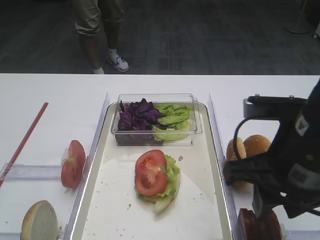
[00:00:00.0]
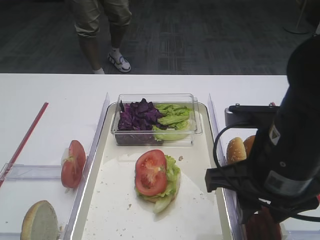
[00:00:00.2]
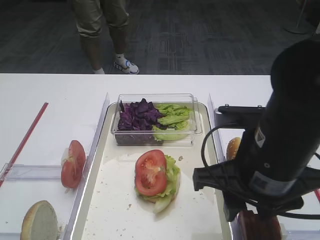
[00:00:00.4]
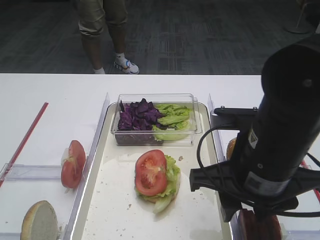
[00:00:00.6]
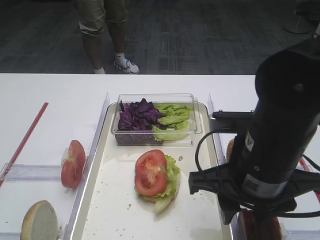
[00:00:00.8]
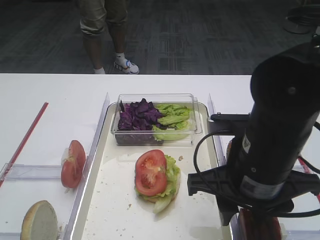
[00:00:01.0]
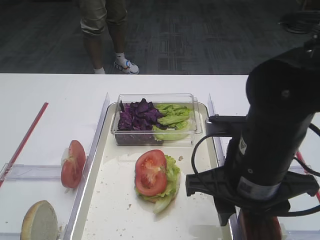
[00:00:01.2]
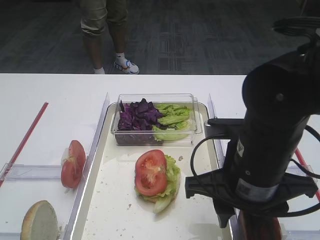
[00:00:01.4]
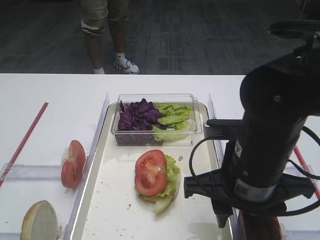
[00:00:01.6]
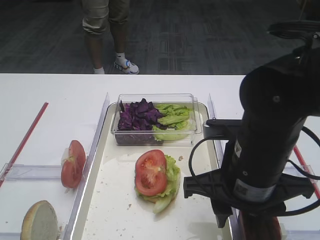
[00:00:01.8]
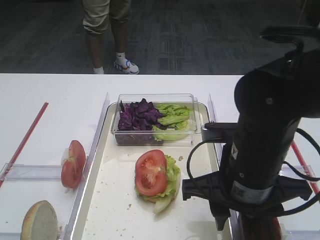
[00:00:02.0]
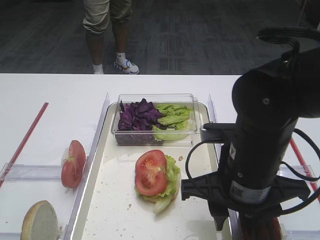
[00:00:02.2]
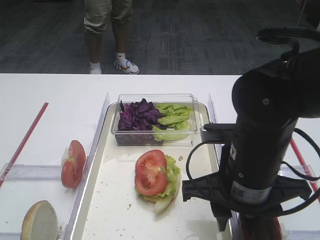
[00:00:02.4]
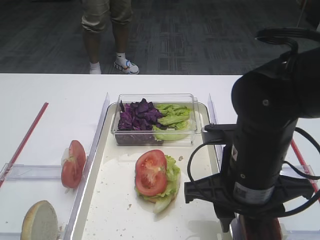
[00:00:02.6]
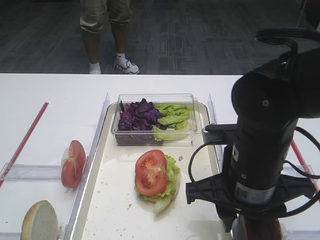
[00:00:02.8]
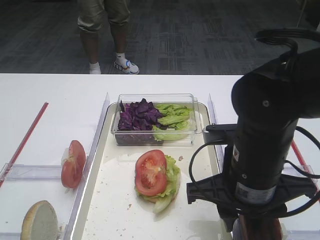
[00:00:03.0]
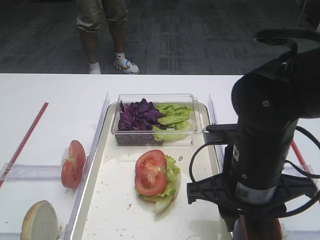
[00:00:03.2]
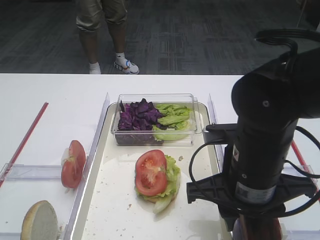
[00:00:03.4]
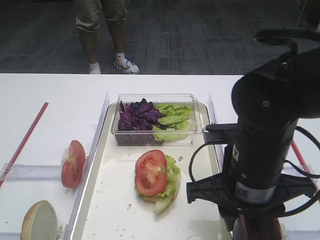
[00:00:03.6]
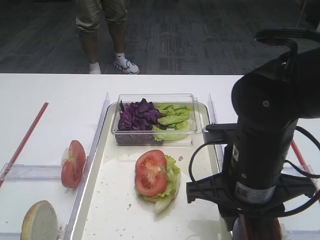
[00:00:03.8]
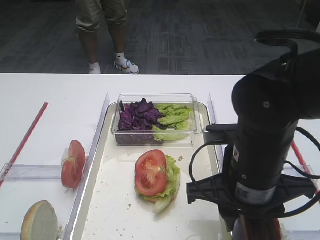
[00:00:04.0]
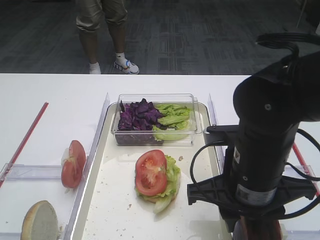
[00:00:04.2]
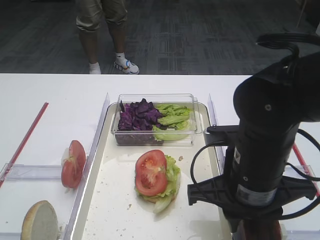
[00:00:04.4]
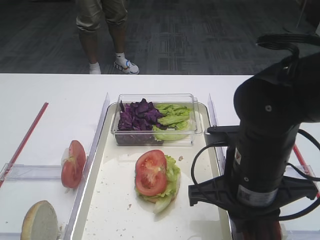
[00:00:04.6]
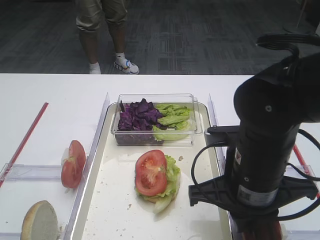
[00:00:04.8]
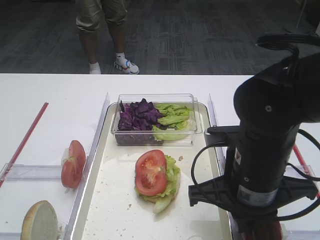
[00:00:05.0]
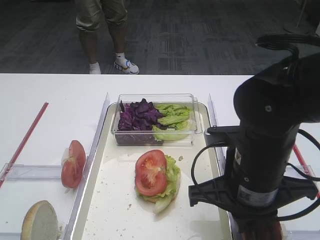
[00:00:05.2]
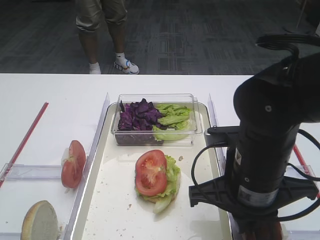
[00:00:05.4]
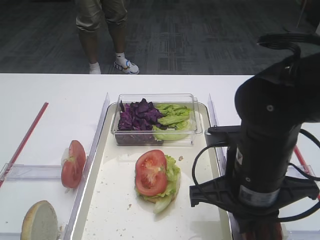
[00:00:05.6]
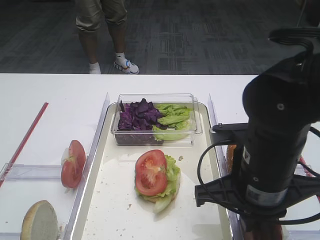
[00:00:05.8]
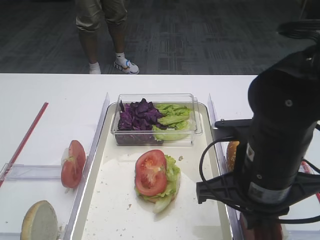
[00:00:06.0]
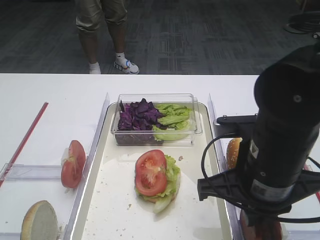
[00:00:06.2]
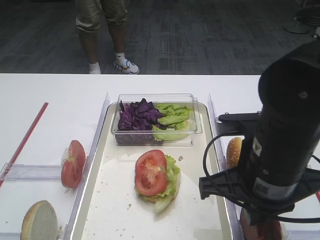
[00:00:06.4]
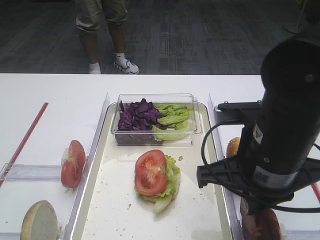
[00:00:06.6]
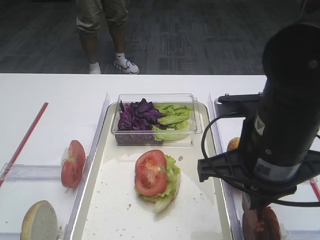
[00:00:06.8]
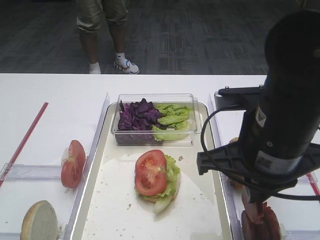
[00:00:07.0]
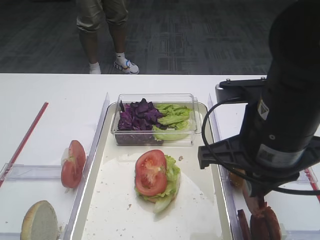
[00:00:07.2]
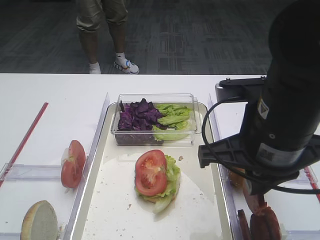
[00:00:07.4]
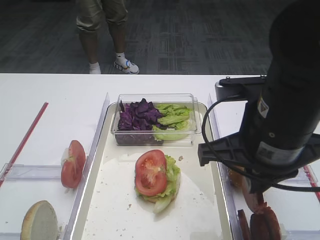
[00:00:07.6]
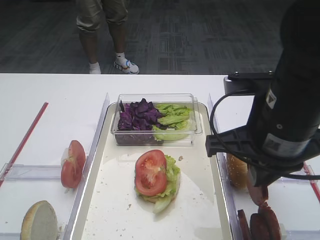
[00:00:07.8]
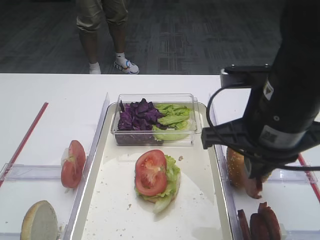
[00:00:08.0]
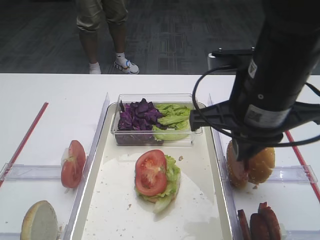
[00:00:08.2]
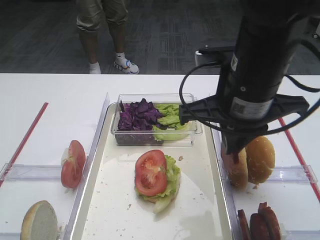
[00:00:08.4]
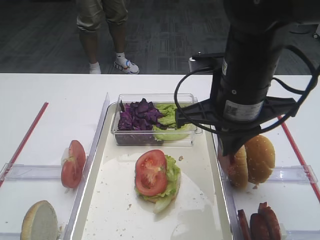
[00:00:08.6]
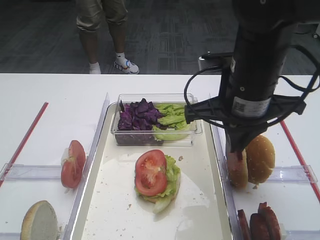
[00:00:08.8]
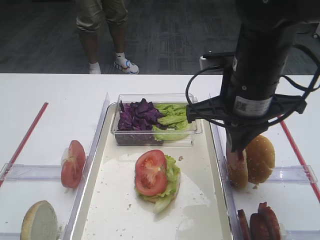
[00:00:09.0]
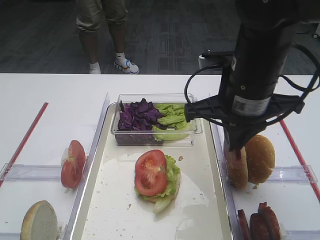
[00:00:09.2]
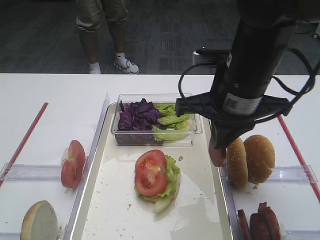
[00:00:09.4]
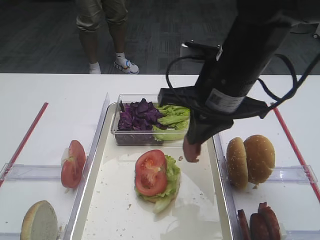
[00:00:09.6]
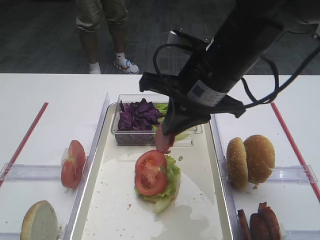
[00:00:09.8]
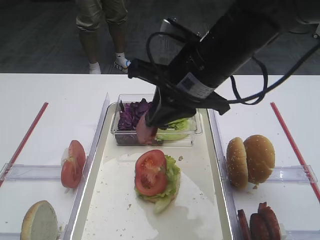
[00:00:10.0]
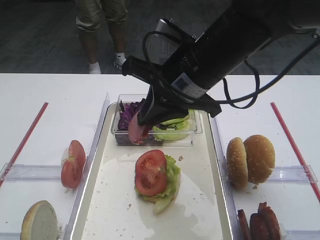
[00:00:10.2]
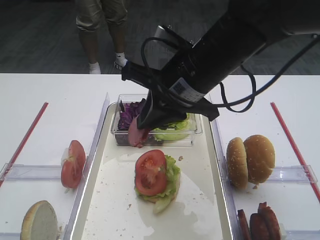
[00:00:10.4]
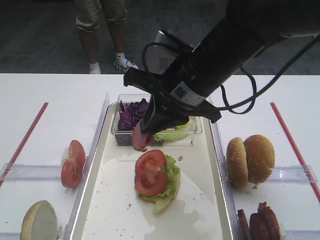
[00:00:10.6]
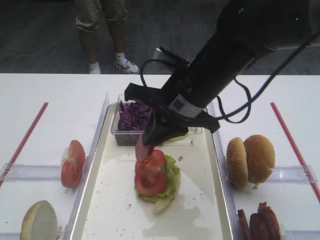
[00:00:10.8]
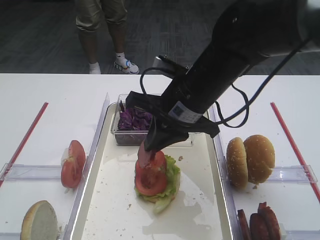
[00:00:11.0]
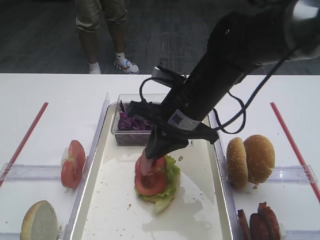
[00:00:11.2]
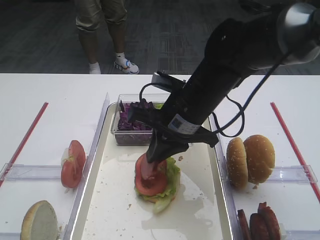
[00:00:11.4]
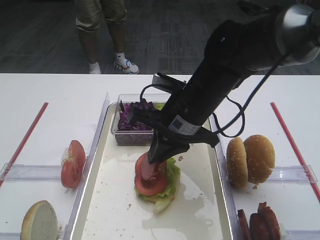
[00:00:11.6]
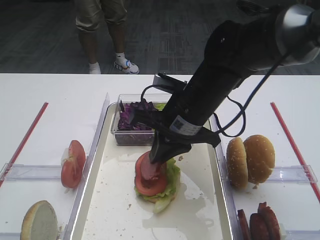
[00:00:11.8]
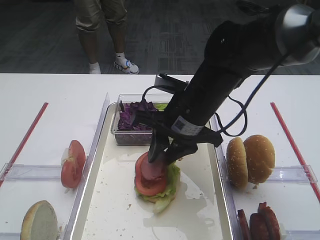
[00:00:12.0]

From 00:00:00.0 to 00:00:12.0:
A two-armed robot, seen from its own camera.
Step, from 00:00:00.0 to 00:00:07.6: Pick up the cutlet with the right gripper.
From 00:00:00.0 to 00:00:01.6: The right gripper moves about 5 cm.
From 00:00:01.6 to 00:00:04.4: The two grippers keep their place.
From 00:00:04.4 to 00:00:06.0: The right gripper closes.
From 00:00:06.0 to 00:00:07.6: The right gripper shifts some 5 cm upward.
From 00:00:07.6 to 00:00:09.0: The right gripper travels forward by about 10 cm.
From 00:00:09.0 to 00:00:10.4: The right gripper is displaced to the left by approximately 5 cm.
From 00:00:10.4 to 00:00:12.0: The right gripper is displaced downward by some 5 cm.

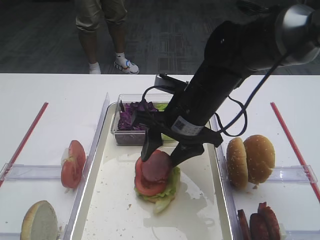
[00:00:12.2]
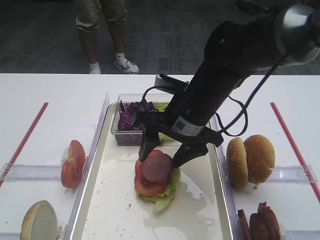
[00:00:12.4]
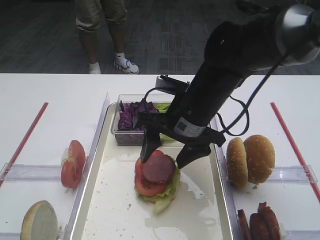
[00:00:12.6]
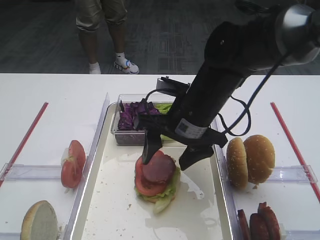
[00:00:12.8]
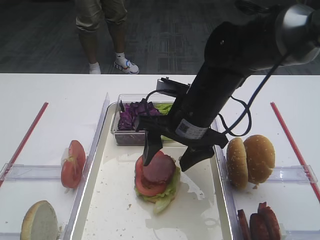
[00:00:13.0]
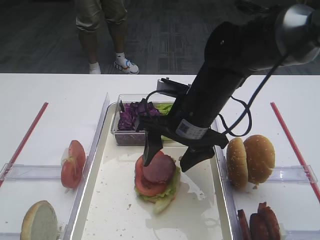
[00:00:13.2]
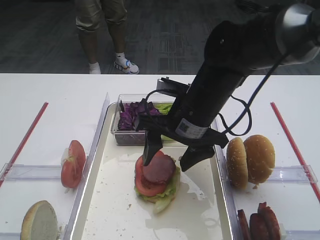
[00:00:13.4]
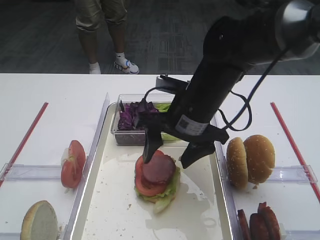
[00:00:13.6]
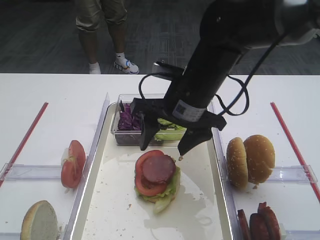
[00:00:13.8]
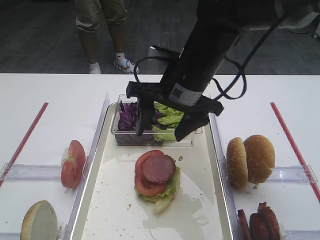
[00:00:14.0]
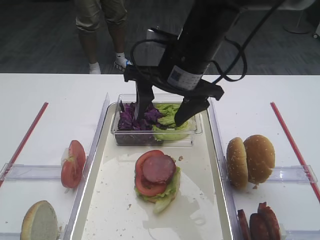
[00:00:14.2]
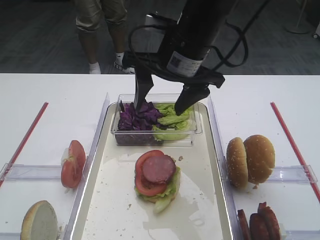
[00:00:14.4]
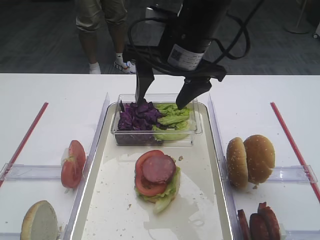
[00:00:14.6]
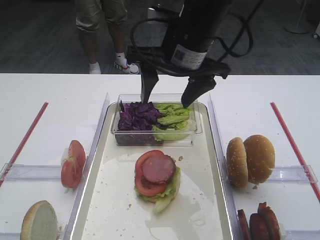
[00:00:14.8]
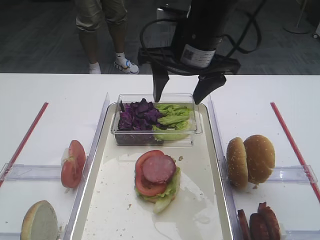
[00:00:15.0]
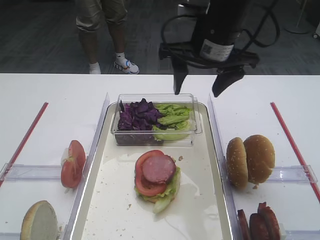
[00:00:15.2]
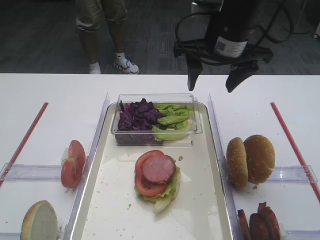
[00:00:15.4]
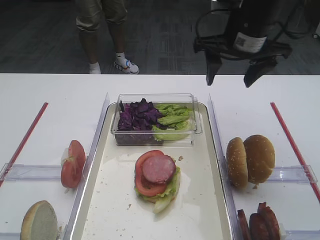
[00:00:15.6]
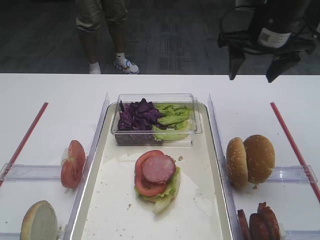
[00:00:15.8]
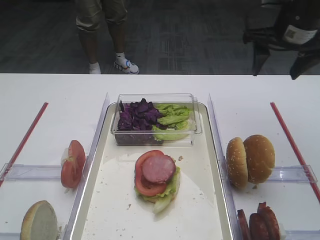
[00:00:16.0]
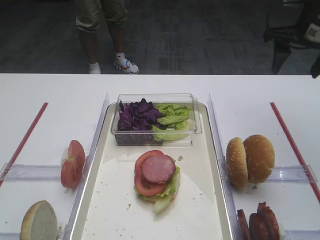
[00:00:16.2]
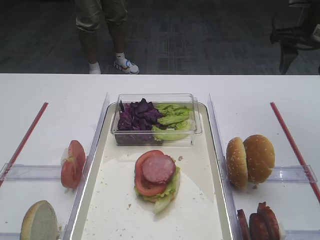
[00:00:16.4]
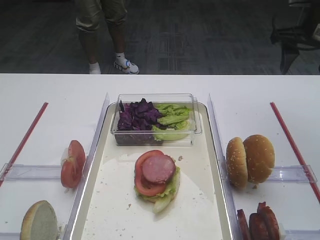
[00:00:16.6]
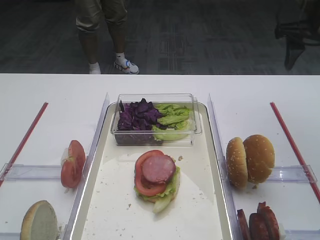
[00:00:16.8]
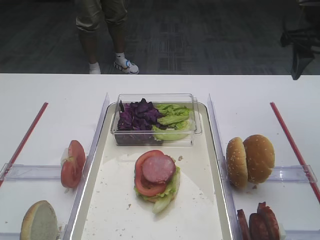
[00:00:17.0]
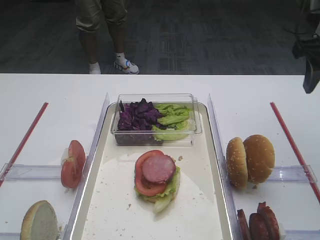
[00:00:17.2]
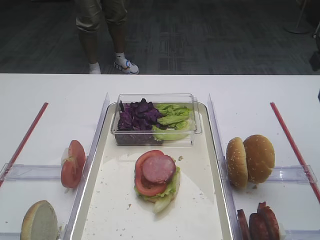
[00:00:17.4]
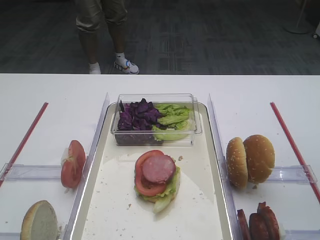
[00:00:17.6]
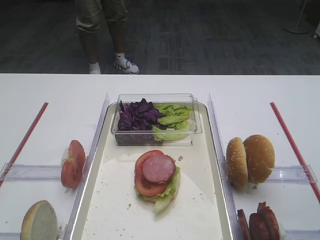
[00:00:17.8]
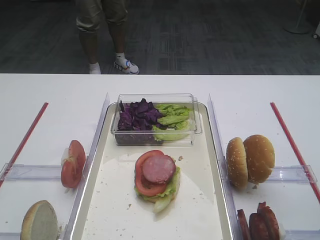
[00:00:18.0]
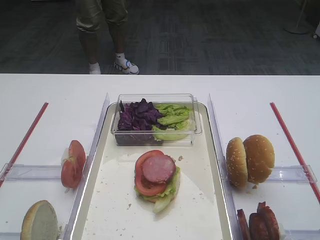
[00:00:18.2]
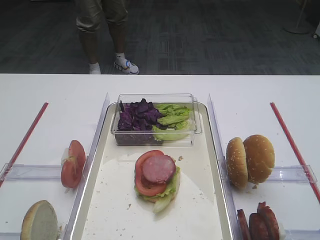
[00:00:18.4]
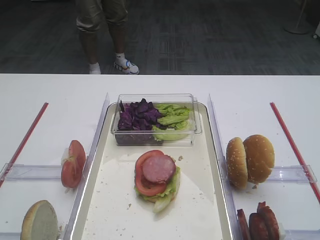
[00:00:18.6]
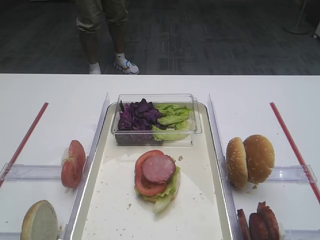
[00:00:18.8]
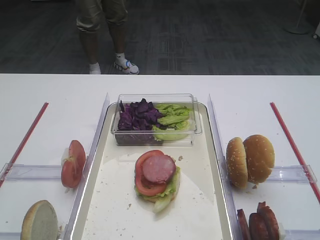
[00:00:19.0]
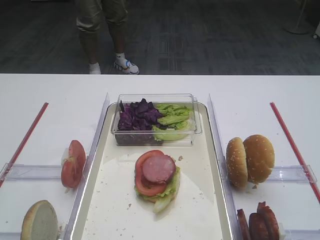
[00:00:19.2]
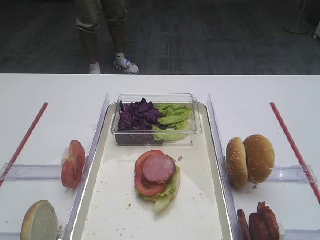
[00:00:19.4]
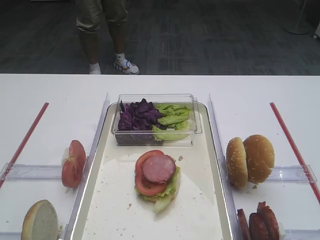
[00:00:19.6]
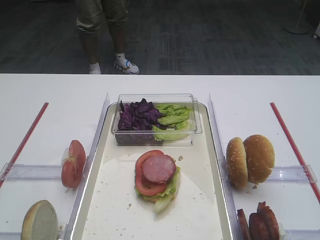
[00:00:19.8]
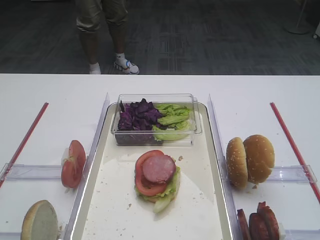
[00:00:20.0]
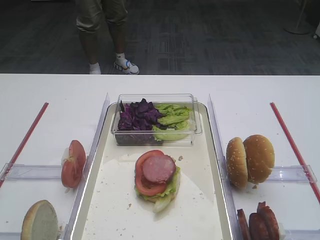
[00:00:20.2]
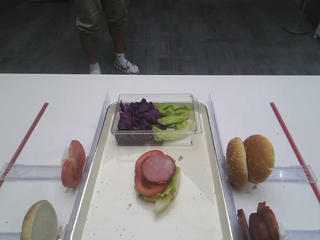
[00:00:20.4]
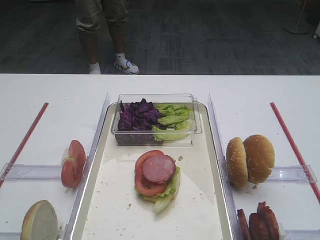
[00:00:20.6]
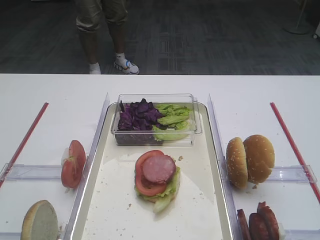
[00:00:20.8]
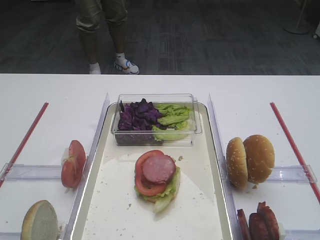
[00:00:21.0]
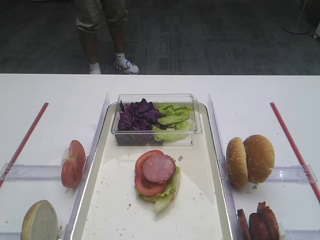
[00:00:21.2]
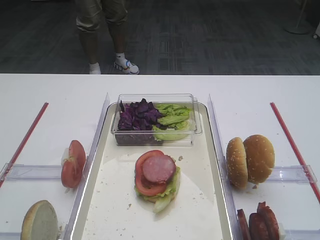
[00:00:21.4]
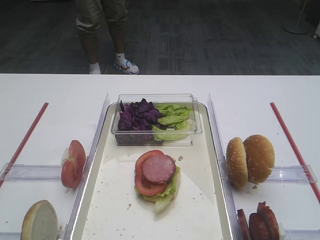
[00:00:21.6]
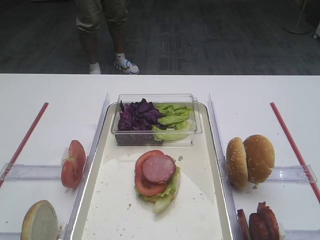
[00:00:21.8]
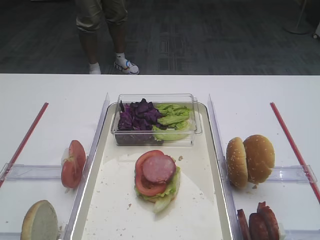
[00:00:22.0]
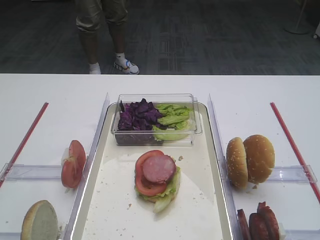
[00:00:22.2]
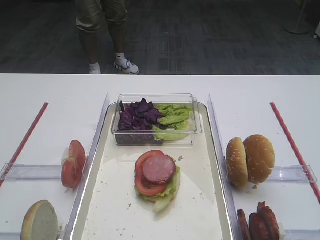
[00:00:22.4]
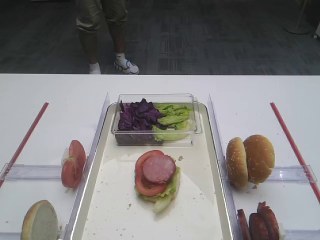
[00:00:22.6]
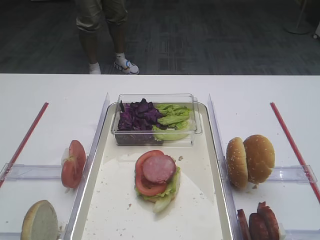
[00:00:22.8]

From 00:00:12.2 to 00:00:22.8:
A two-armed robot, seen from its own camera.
Step, from 00:00:12.2 to 00:00:14.8: Place the cutlet on the tomato slice with the right gripper.
From 00:00:12.2 to 00:00:13.8: The grippers move only a little.
From 00:00:13.8 to 00:00:15.2: The right gripper goes roughly 10 cm upward.
From 00:00:15.2 to 00:00:16.8: The right gripper goes about 20 cm to the right.
From 00:00:16.8 to 00:00:18.2: The right gripper shifts about 30 cm backward.
From 00:00:19.8 to 00:00:22.8: Neither gripper changes place.
